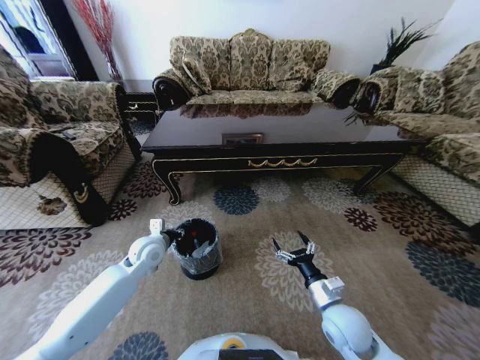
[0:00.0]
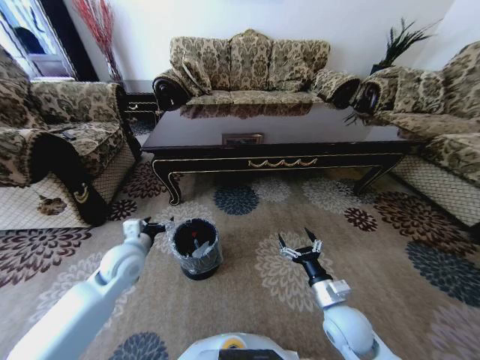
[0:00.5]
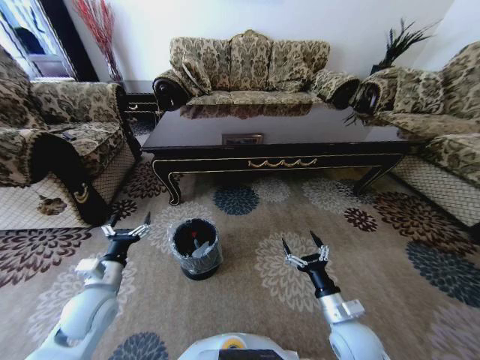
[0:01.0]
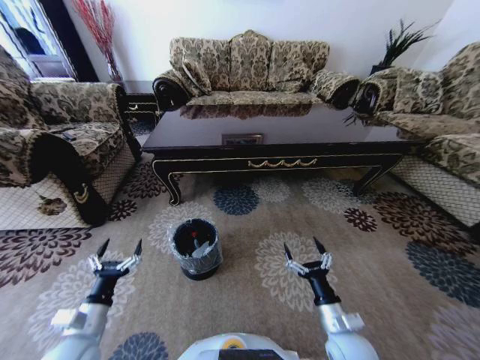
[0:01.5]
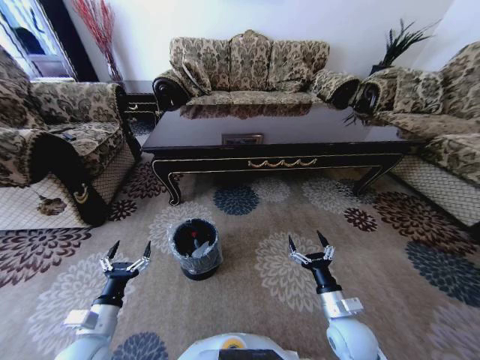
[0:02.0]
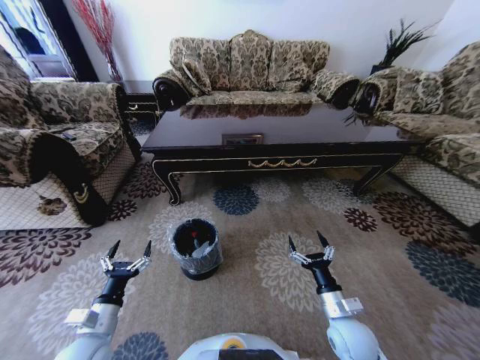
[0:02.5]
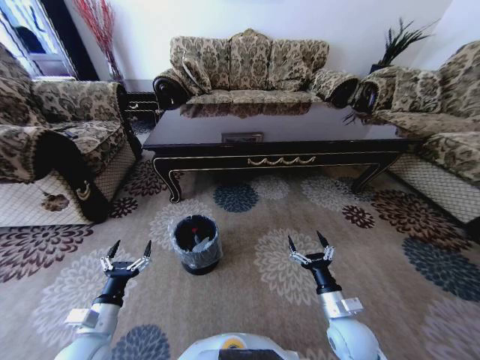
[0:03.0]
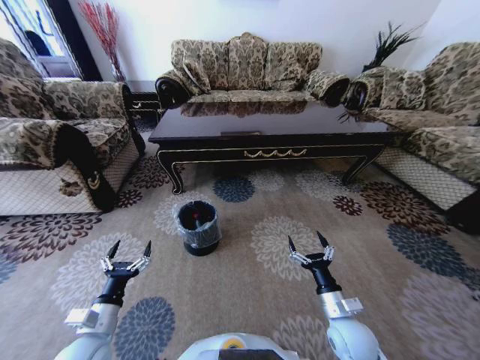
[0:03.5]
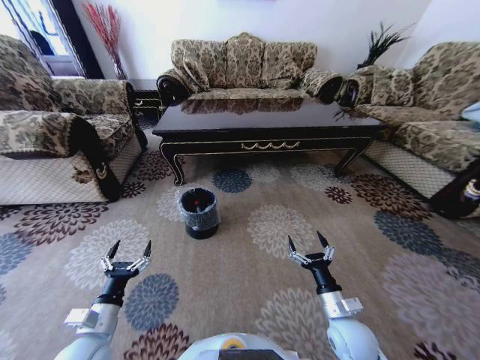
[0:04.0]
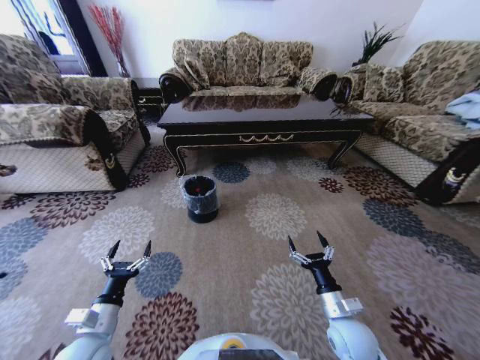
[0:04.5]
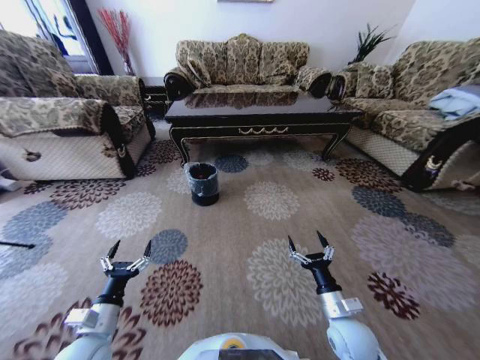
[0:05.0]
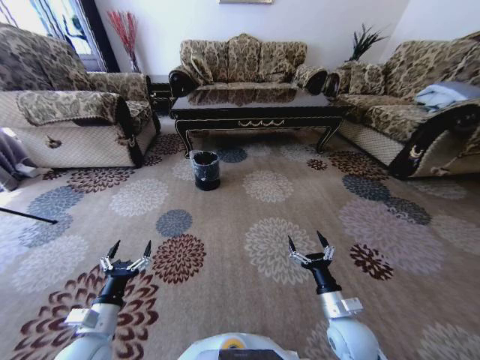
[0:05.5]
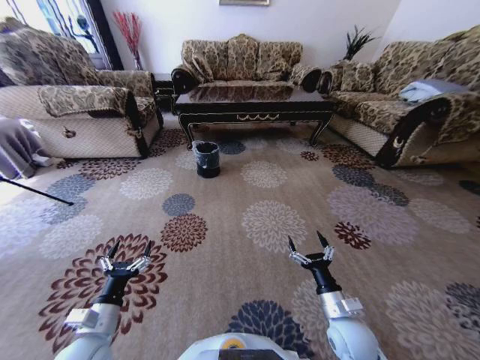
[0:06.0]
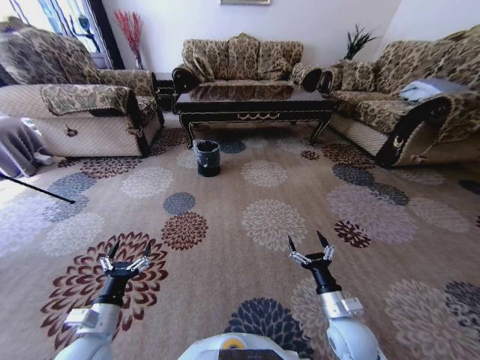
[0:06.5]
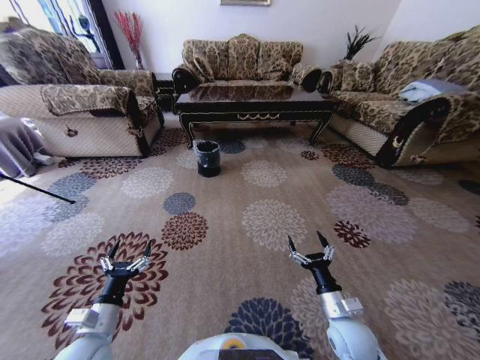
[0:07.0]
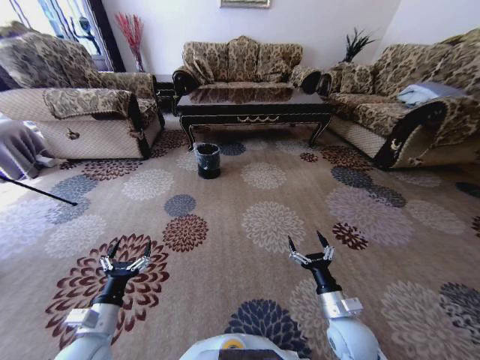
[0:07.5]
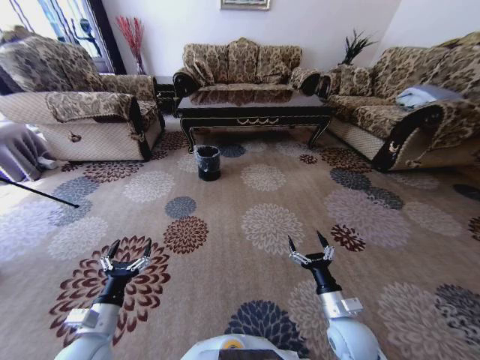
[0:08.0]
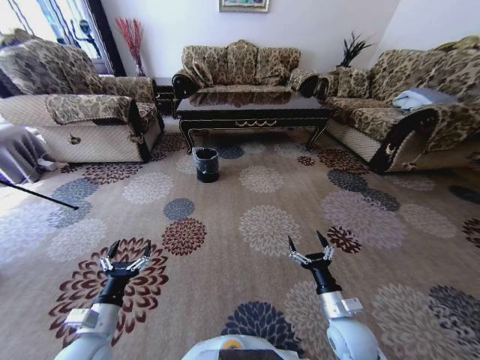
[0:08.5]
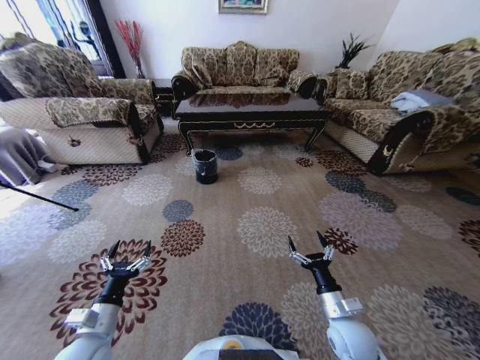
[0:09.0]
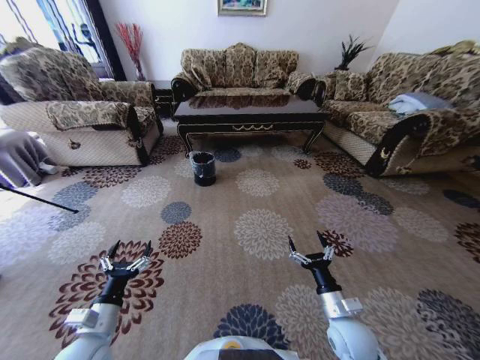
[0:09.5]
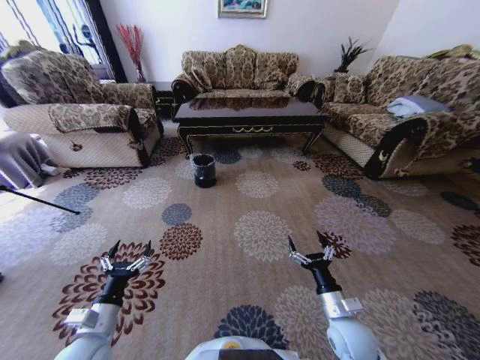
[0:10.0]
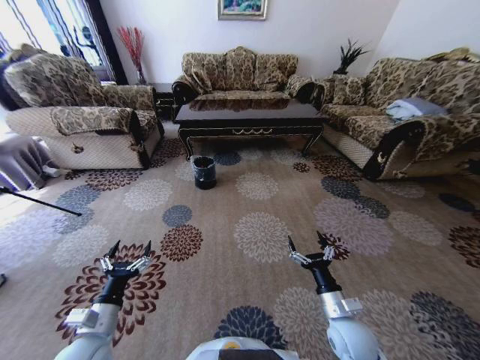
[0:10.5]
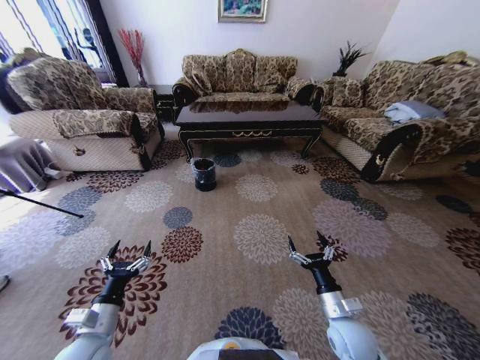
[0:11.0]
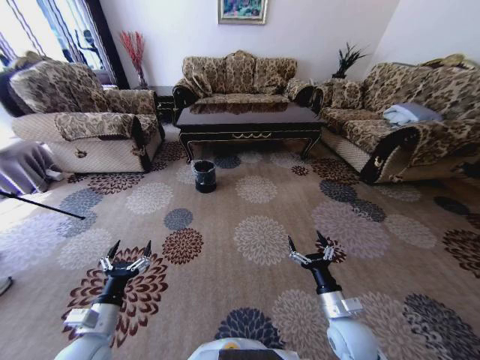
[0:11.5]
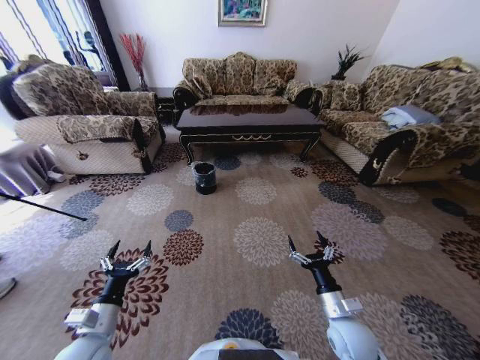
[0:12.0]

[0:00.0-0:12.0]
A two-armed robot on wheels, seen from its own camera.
Task of the whole recording: Move to the front of the table and pick up the trash from the floor, then place it into the trash bin.
0:00.0 to 0:02.0: The left gripper shifts some 25 cm backward, and opens up.
